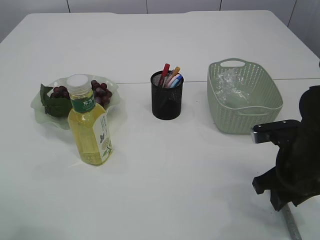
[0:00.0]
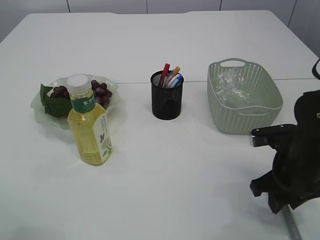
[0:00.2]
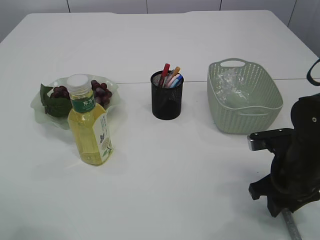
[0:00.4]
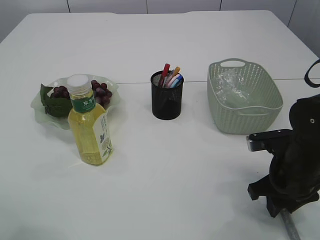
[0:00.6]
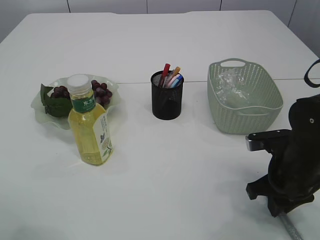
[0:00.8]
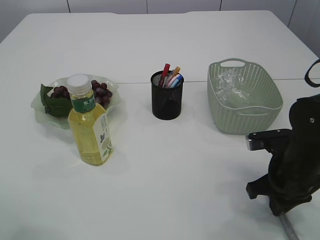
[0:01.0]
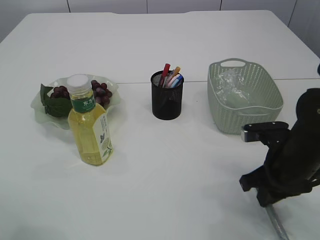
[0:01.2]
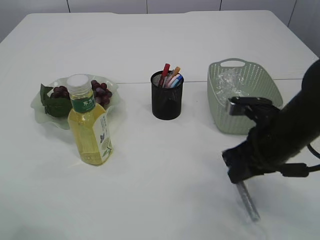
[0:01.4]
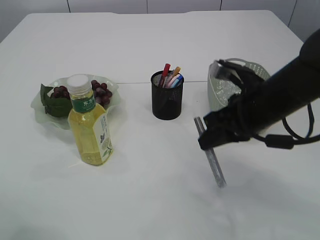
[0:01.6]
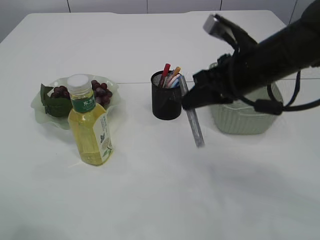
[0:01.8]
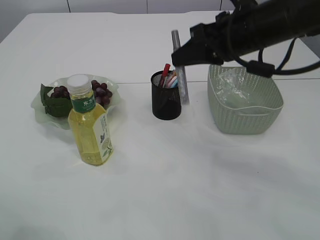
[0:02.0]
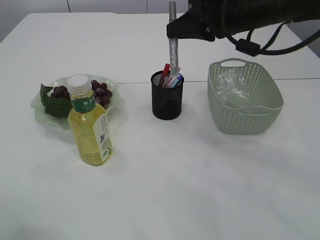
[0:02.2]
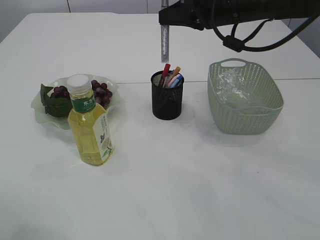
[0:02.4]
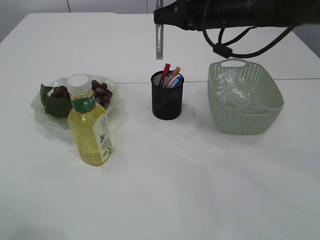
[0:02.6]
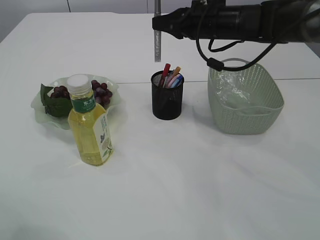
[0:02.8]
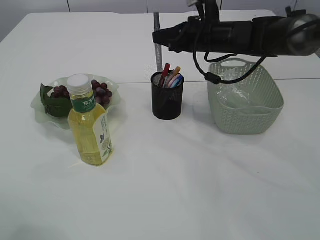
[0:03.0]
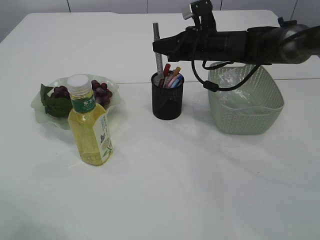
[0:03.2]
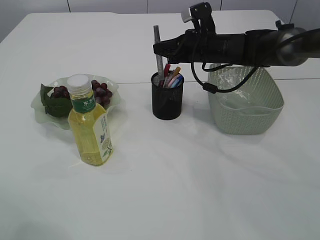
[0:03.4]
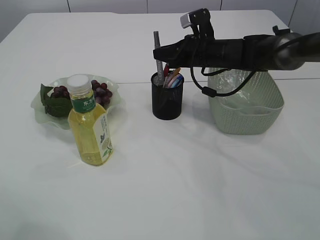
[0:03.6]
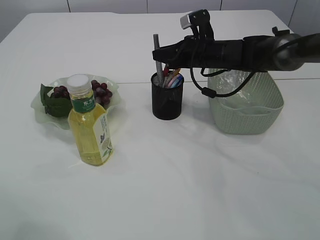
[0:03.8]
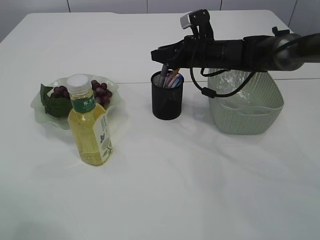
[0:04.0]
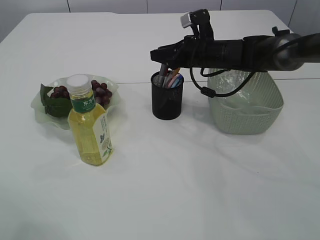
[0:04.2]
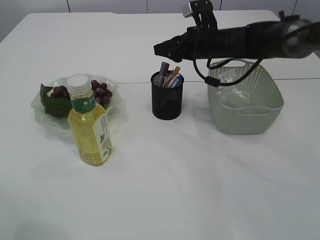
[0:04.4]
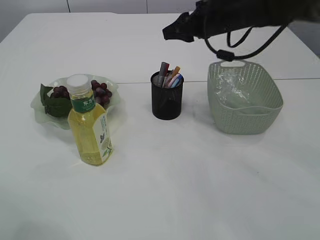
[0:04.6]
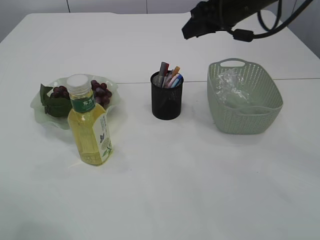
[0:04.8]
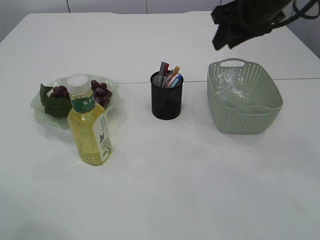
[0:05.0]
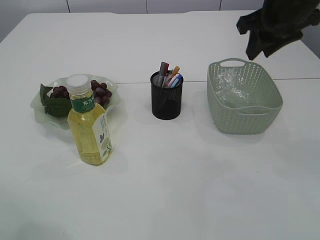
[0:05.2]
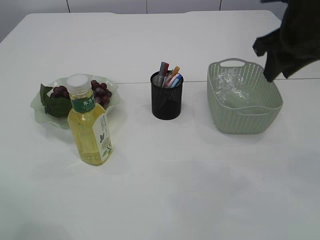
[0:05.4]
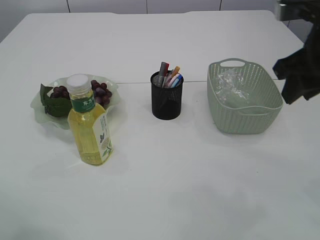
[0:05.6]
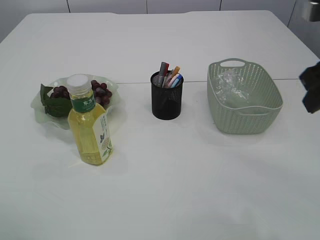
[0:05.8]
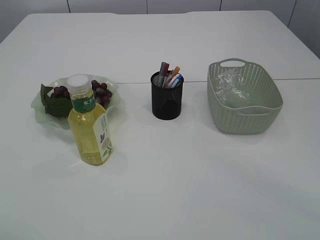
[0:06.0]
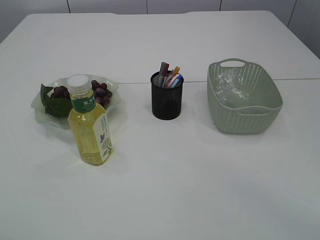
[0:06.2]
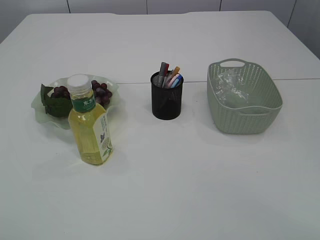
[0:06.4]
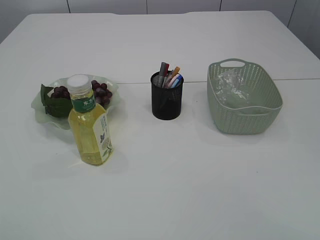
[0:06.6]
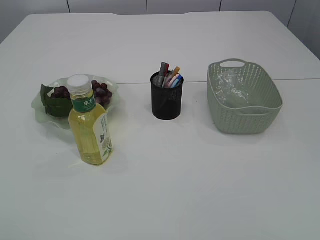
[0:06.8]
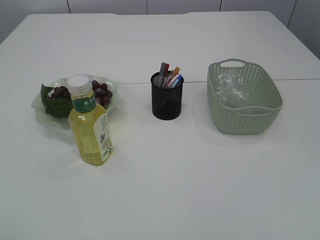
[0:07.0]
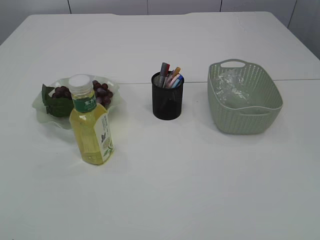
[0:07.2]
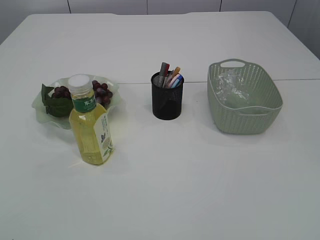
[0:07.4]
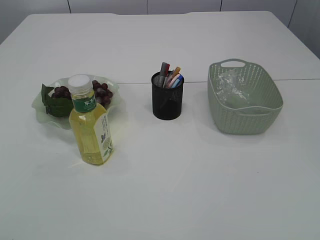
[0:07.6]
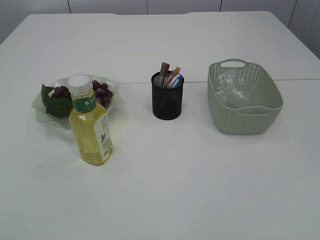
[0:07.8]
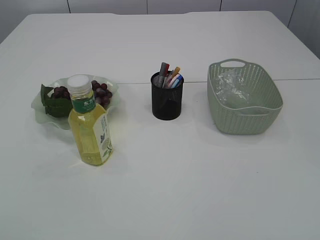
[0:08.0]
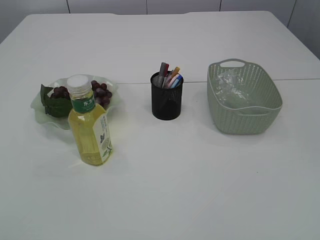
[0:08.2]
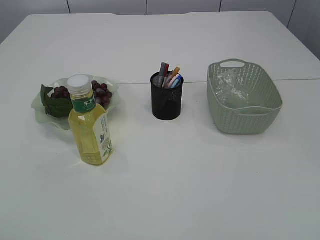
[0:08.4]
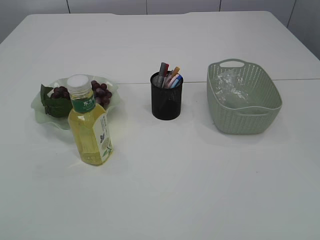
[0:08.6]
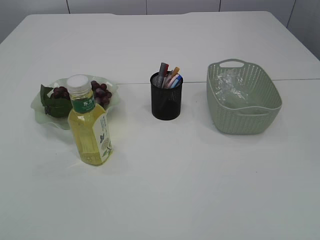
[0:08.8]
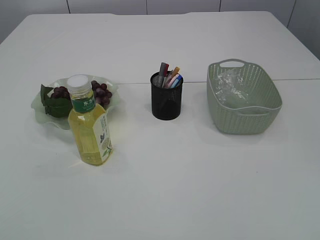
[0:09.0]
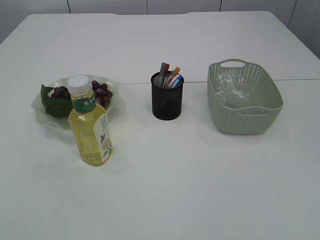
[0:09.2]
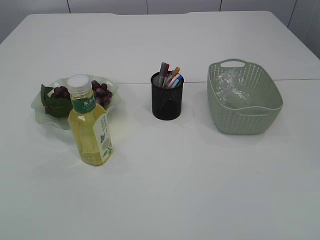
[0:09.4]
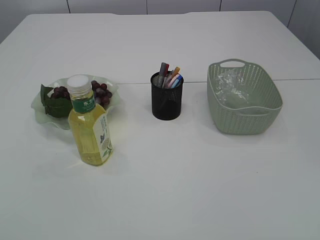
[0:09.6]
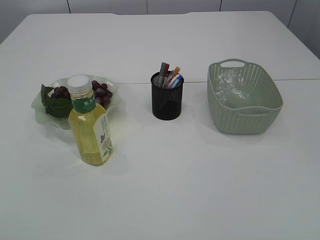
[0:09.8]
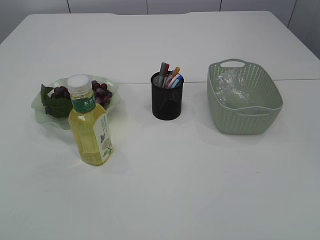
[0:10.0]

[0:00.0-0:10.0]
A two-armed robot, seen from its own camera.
Step, 1.6 to 4.4 s: place the silver glue into the pen holder.
0.0 to 1.4 s: The right gripper closes up.
1.4 to 2.8 s: The right gripper is displaced forward and upward by approximately 20 cm.
2.8 to 4.2 s: The right gripper moves downward, some 10 cm, and opens its fingers.
4.2 to 5.8 s: The right gripper heads backward, upward and to the right, covering some 30 cm.
5.8 to 7.2 s: The grippers both shift backward by about 25 cm.
7.2 to 8.6 s: The left gripper changes place by roughly 5 cm.

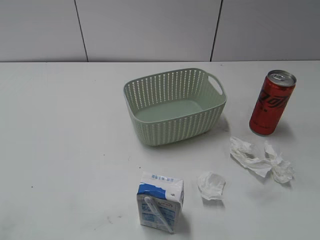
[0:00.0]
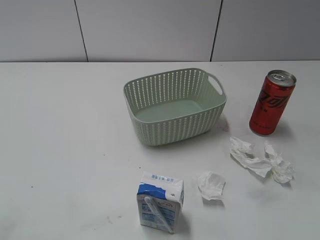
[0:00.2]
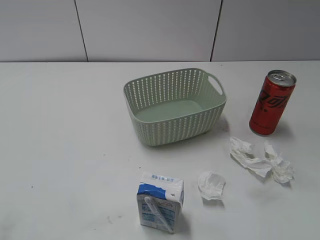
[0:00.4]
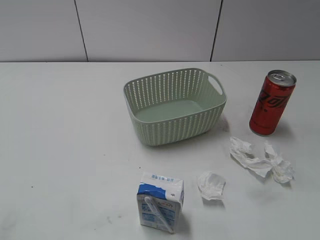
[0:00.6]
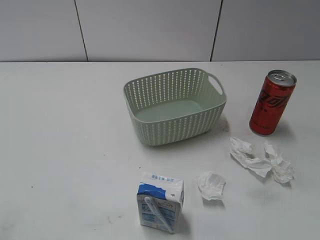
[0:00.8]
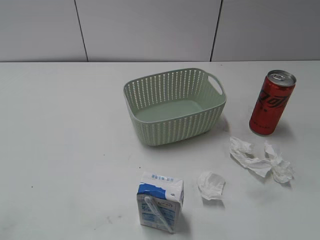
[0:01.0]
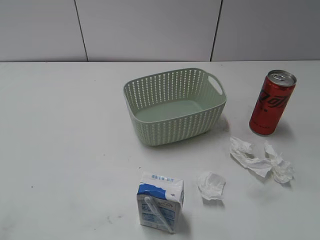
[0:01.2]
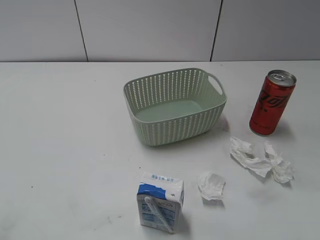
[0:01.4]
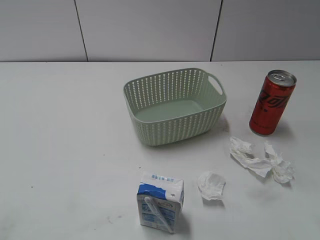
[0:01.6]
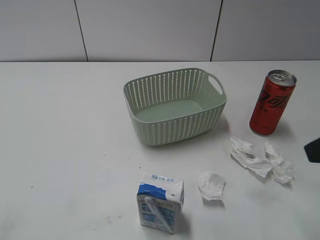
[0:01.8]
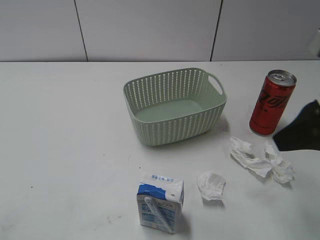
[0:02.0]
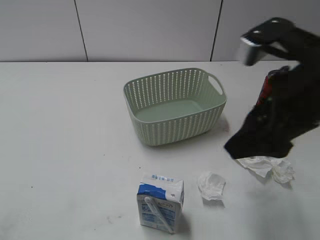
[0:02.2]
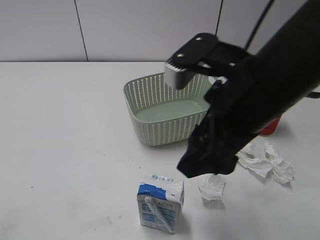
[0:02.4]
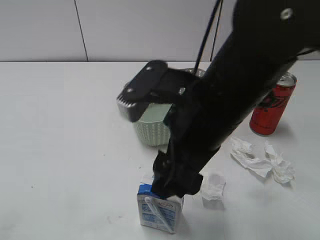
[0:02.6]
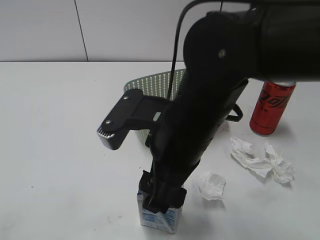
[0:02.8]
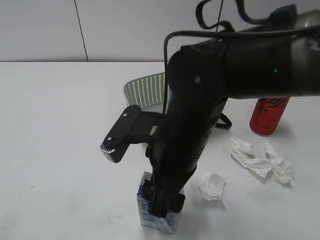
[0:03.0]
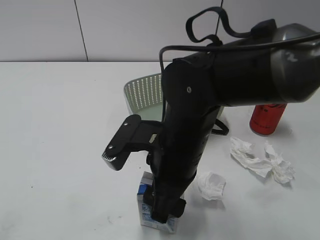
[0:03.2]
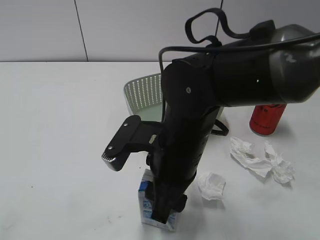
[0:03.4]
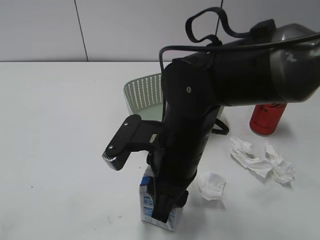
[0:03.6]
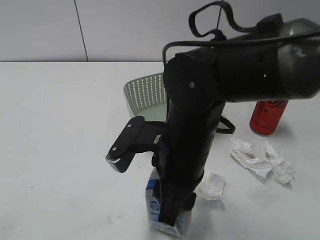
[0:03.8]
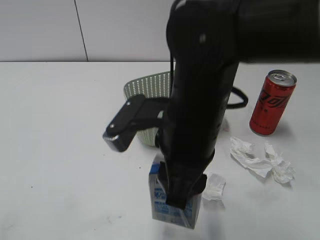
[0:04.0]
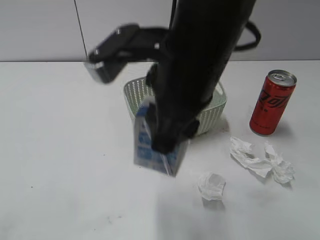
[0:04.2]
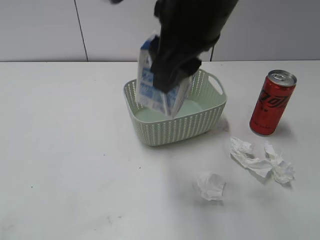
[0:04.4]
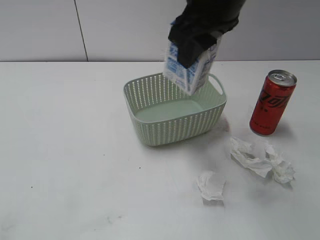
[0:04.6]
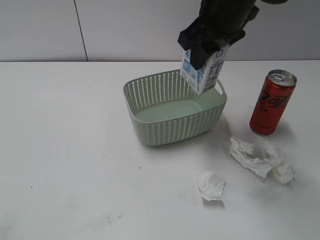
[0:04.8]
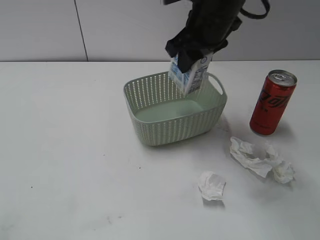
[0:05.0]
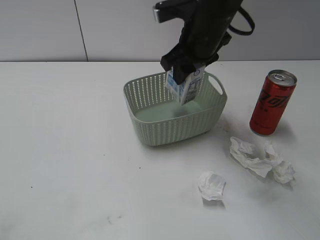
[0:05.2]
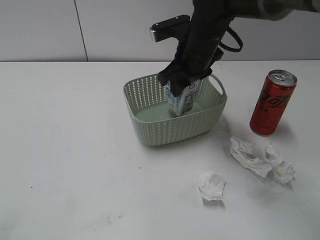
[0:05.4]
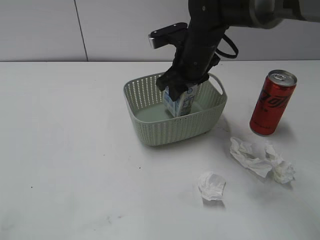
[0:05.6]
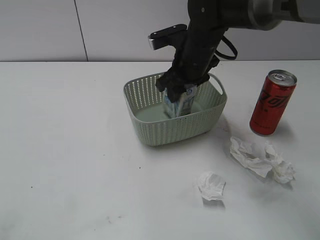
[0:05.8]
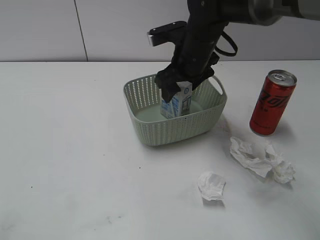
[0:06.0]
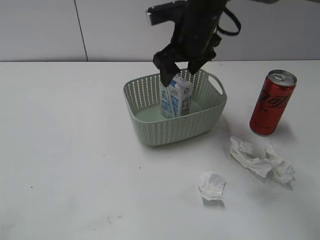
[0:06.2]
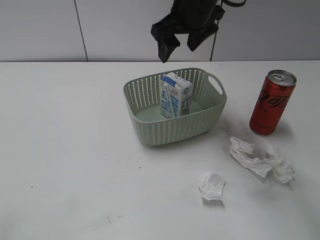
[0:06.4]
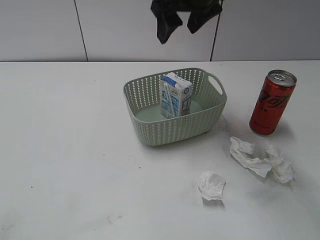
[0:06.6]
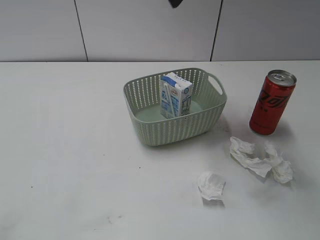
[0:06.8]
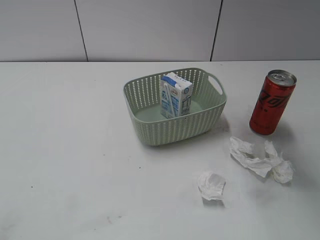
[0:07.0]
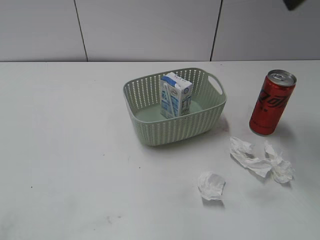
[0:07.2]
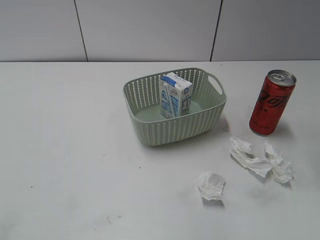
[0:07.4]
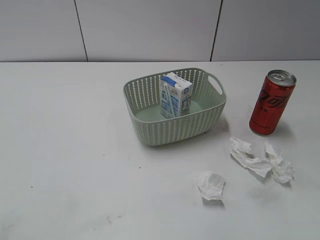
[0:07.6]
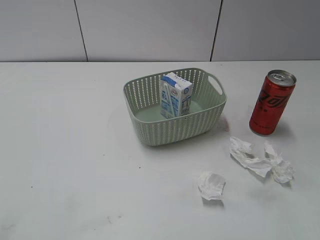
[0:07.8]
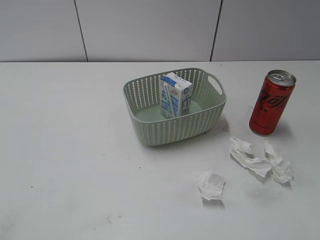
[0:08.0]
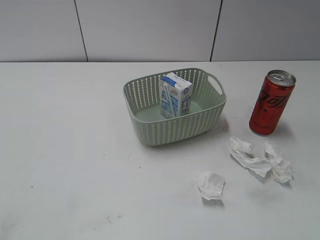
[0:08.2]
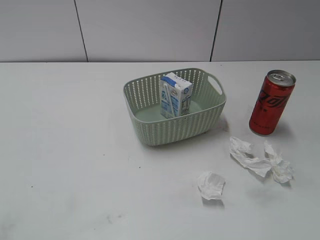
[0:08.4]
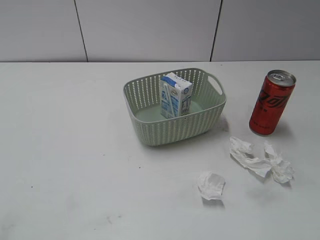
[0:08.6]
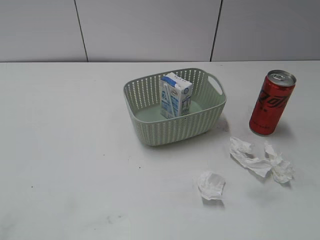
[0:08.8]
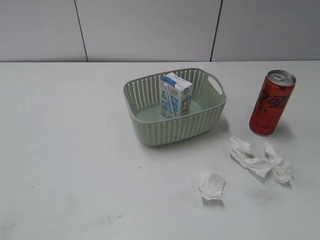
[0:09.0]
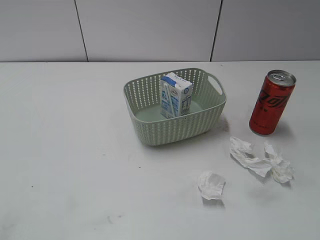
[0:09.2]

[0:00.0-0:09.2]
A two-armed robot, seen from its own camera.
Step, 1.8 to 3.4 s: Grasp the milk with right gripper.
Step, 3.6 to 6.2 s: Place the milk in the basket with right gripper.
1.6 to 3.0 s: The right gripper shifts roughly 30 cm to the left and downward.
3.0 to 4.6 s: The right gripper heads upward and forward, covering about 20 cm, and closes its fingers.
4.6 to 6.2 s: The right gripper goes some 15 cm downward and forward, and opens its fingers.
6.2 to 7.6 s: The right gripper heads to the right, backward and upward, covering approximately 30 cm.

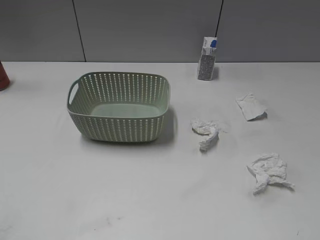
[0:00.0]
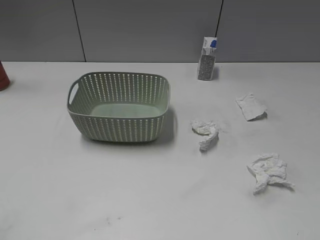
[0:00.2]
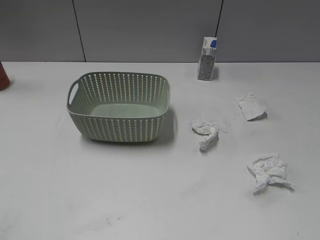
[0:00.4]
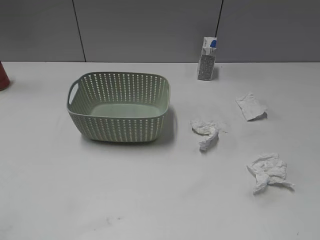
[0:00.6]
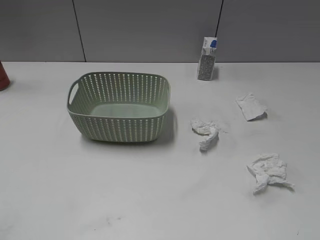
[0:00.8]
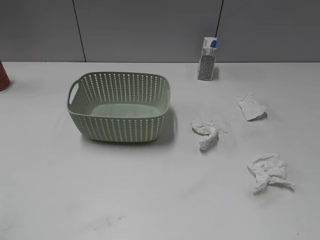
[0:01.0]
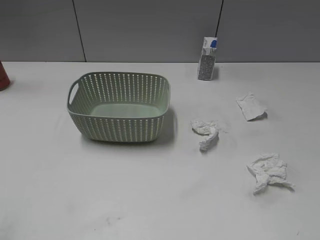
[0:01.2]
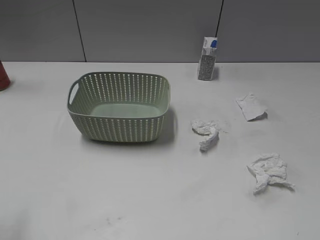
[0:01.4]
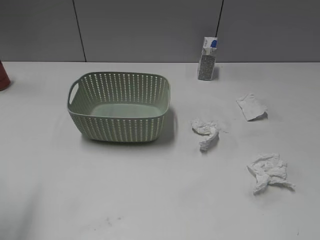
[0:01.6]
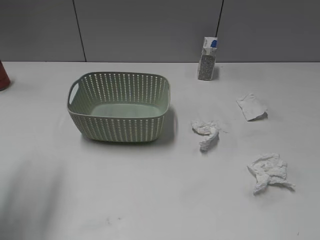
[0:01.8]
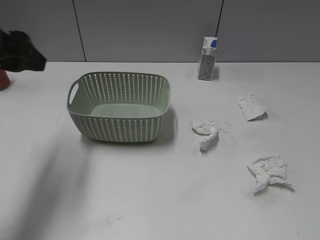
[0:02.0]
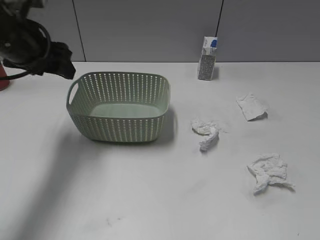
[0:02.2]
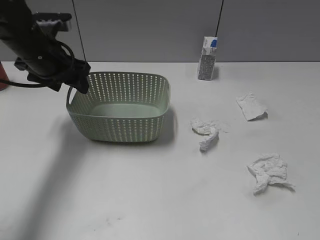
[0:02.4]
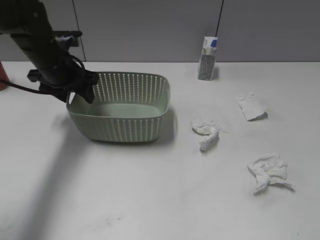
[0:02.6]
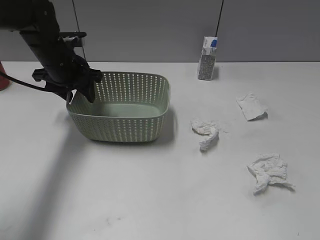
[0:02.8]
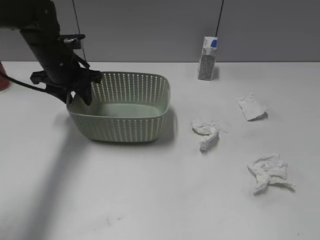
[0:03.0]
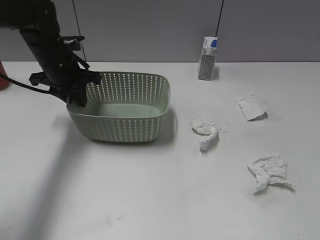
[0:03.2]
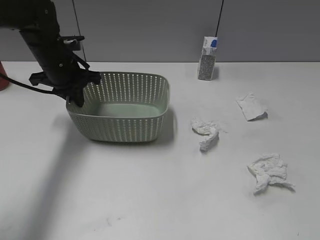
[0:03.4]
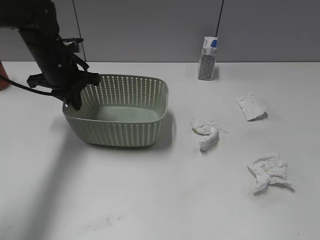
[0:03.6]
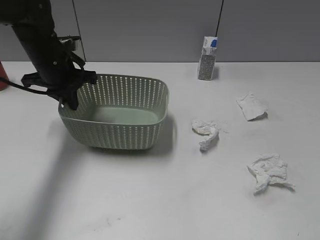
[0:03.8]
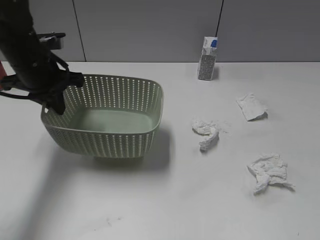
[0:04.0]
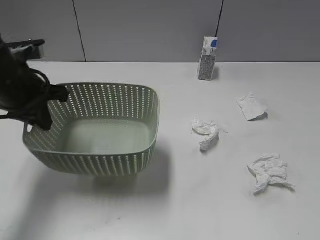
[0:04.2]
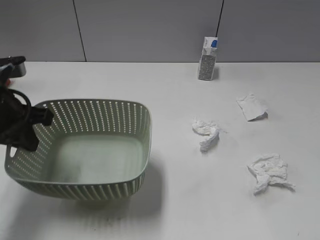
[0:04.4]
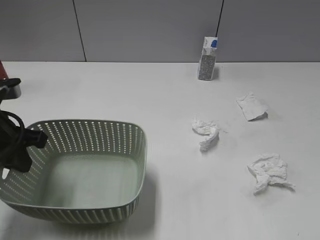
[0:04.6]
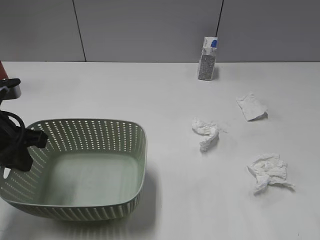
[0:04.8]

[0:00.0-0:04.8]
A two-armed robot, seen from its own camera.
Step, 1.8 to 3.4 s: Grasp the basket with left gripper.
Step, 3.6 to 4.2 s: Lift the basket with left gripper.
1.6 to 3.2 s: The left gripper travels forward, downward and to the right by approximately 35 cm, and closes.
3.2 to 4.8 s: The left gripper is displaced backward by some 20 cm, and closes, while the right gripper moves forward, about 10 cm.
